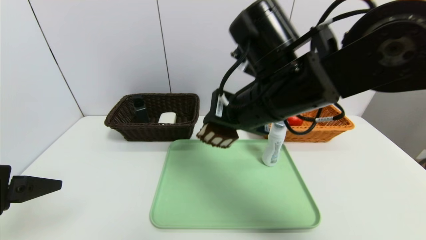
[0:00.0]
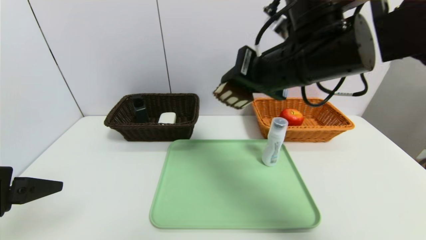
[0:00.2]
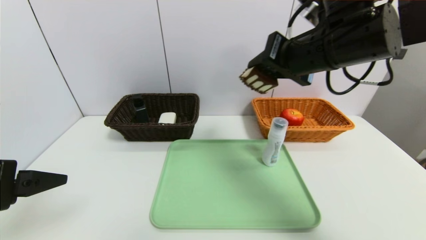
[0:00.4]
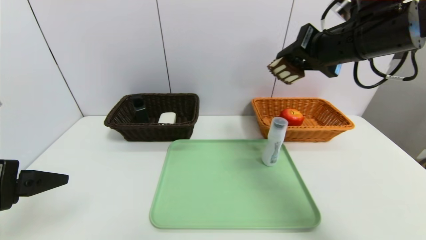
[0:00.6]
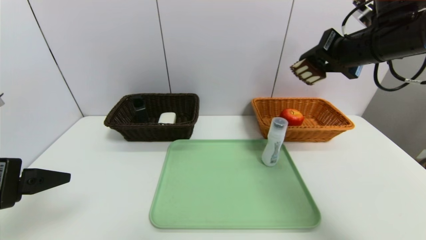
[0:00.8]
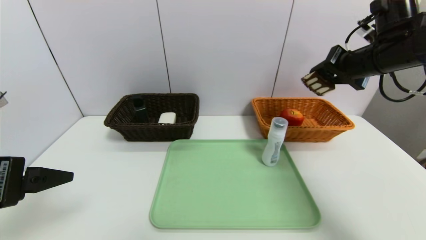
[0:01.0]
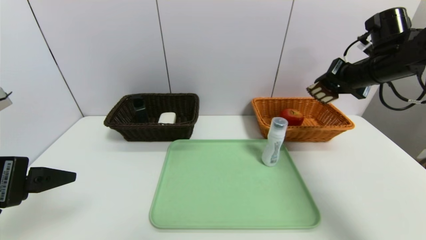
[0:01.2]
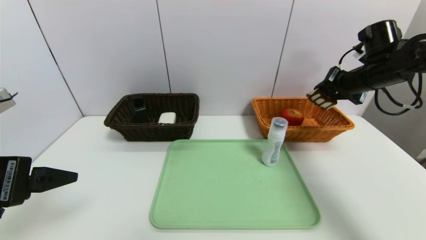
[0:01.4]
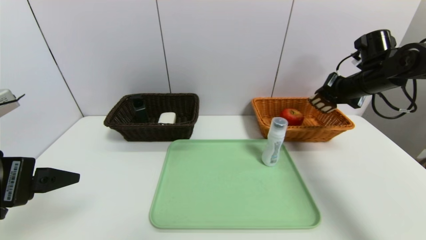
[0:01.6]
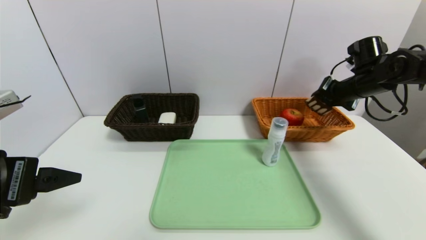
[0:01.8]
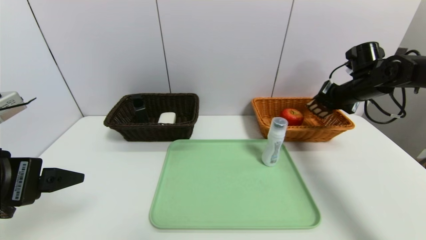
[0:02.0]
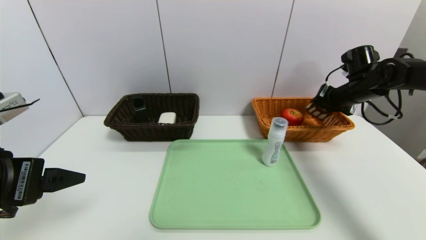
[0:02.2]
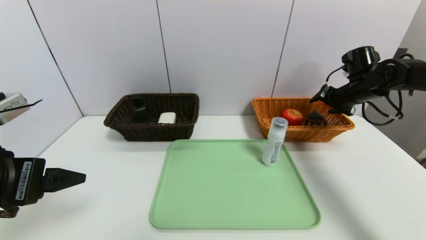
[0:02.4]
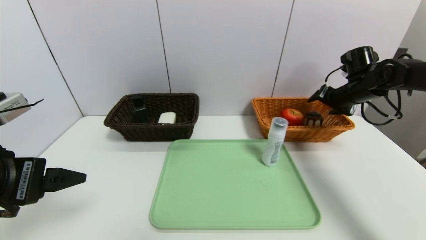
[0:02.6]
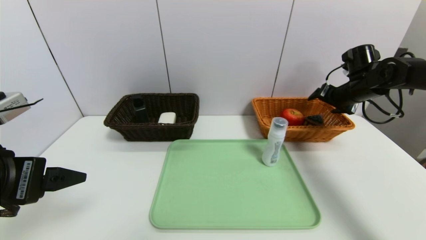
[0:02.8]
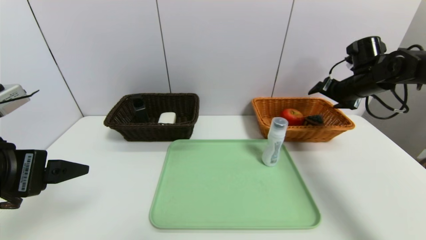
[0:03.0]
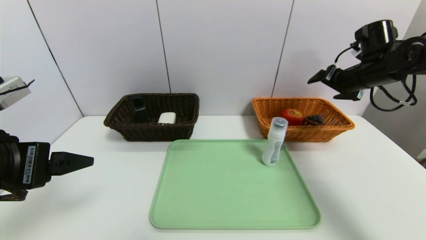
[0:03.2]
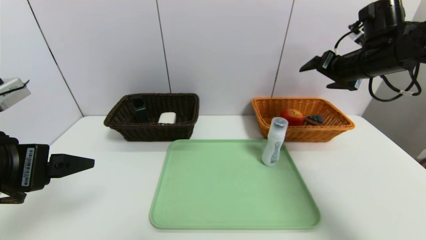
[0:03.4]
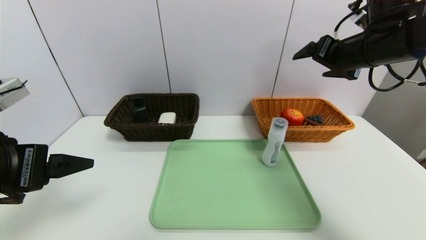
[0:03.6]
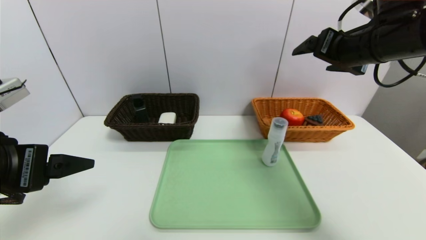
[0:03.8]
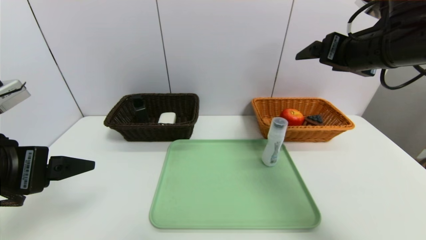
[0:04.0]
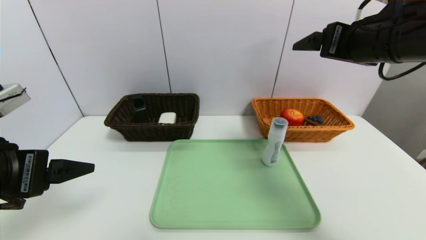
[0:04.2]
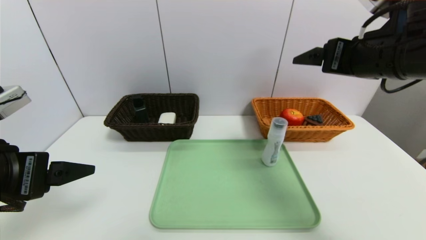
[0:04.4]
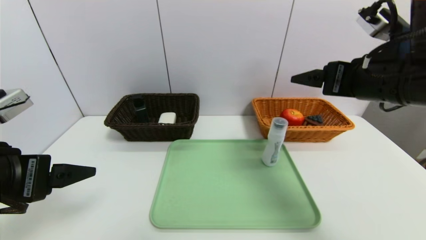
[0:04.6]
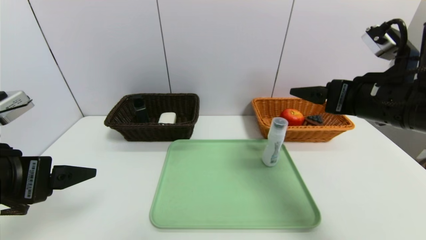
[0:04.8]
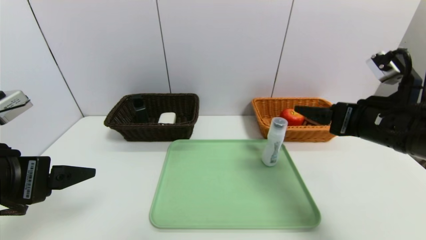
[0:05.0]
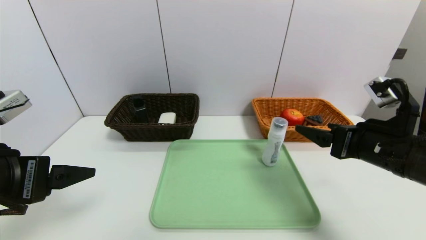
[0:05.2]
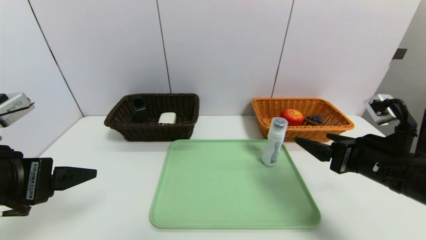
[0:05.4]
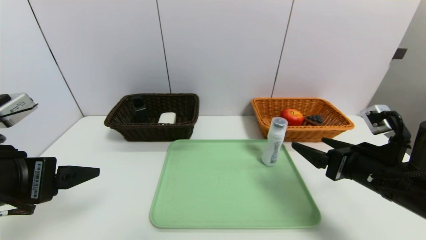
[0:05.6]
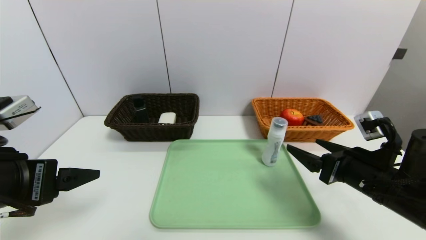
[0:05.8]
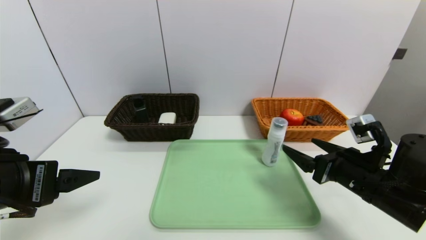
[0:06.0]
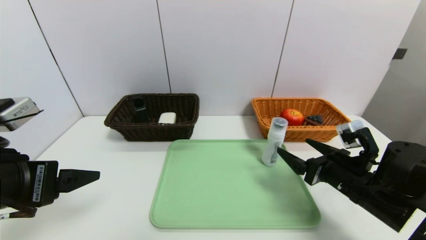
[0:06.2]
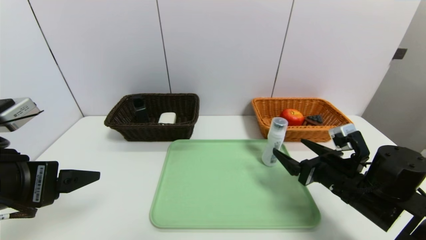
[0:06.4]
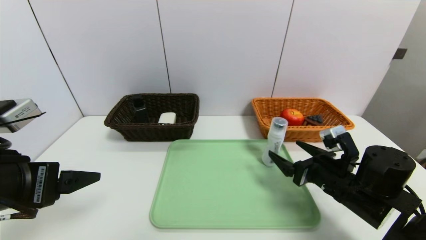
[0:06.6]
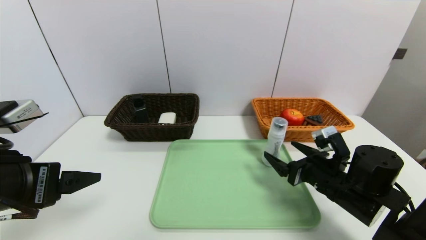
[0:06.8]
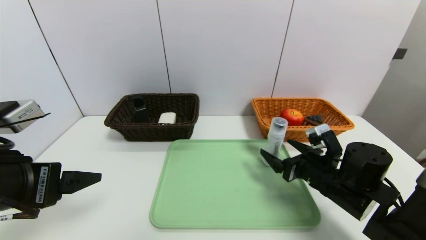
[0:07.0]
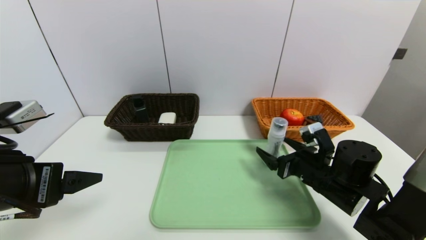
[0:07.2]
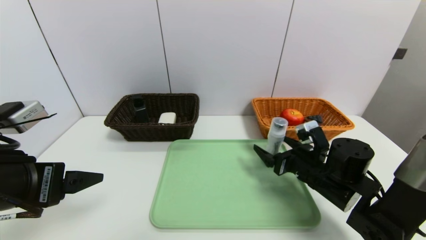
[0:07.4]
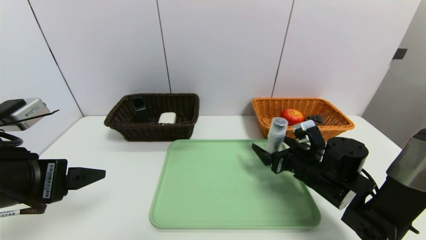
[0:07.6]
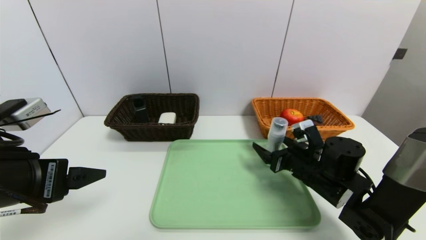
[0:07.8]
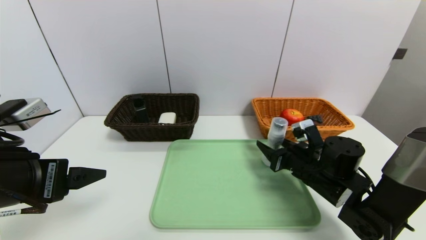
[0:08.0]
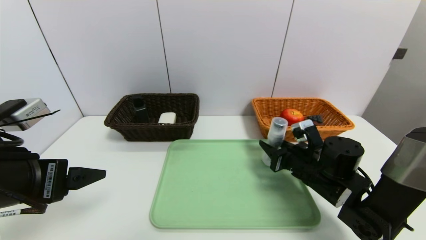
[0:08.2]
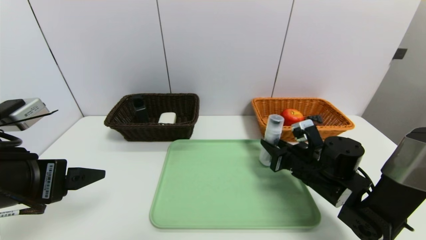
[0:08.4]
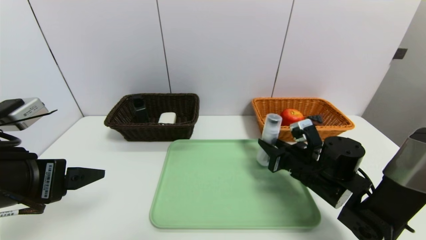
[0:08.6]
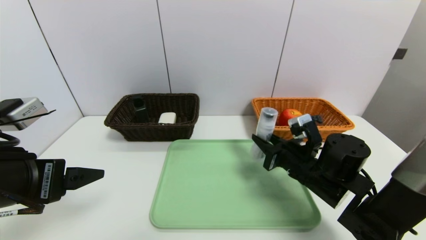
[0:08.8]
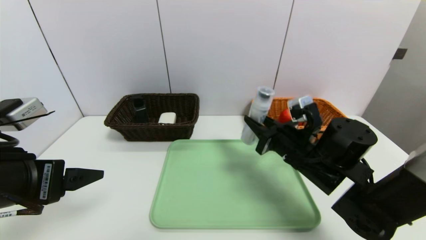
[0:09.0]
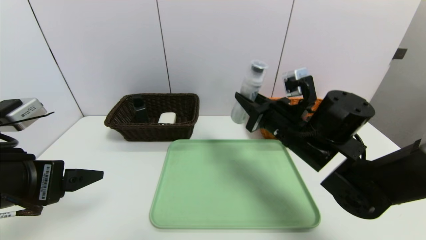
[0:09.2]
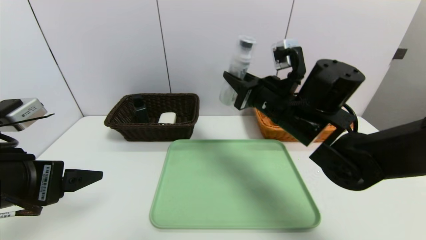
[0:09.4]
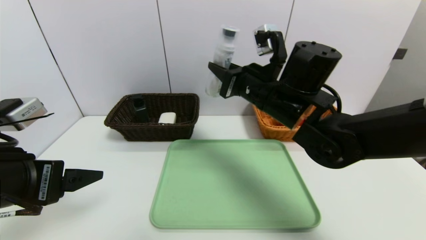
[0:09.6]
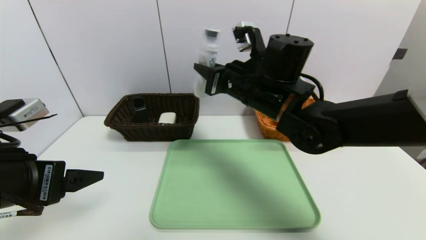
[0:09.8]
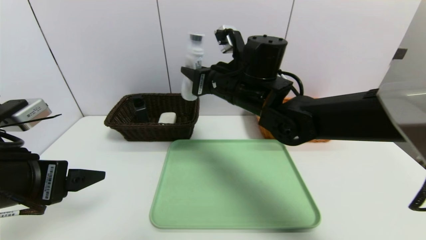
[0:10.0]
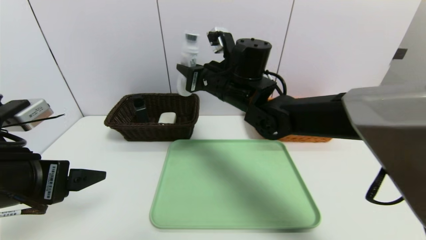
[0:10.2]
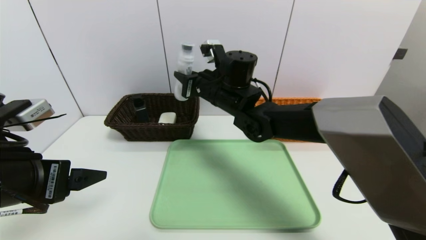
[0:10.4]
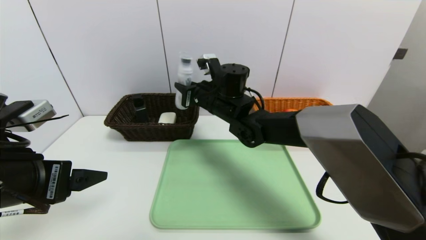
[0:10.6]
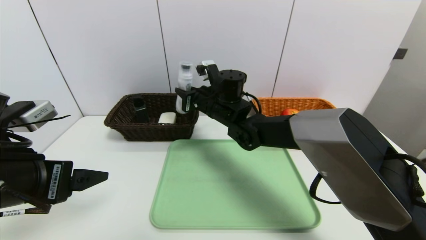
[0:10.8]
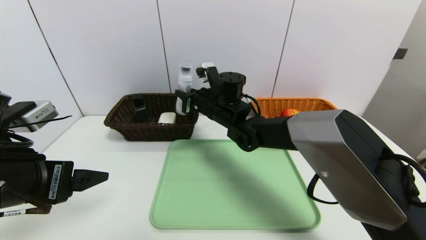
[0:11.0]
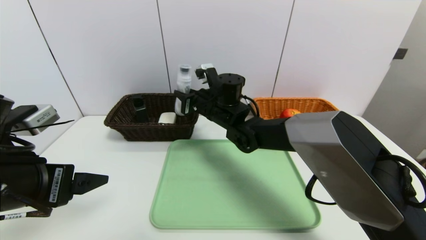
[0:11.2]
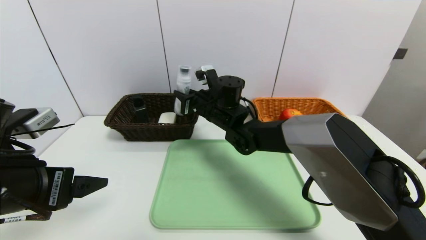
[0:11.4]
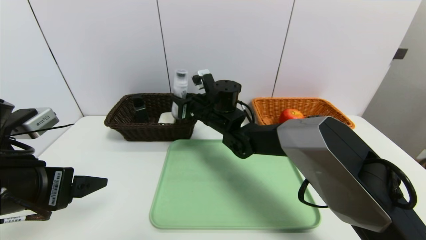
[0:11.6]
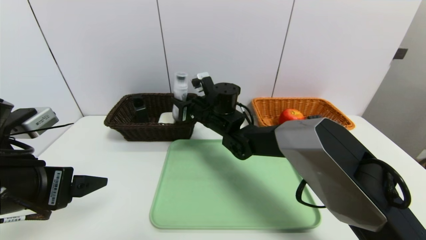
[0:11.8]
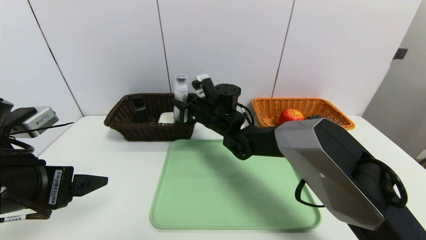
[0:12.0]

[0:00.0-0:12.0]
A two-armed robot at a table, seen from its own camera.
Task of the whole recording: place the food in the right basket with the right gripper, and place the non food items in the left basket with the left gripper.
Step, 0:00.0 to 0:03.0: Grasp the triangle cake and put it in the right basket.
0:00.0 to 0:01.6: The right gripper shifts some 30 cm to the right and forward.
0:01.6 to 0:03.0: The right gripper opens its fingers.
0:03.0 to 0:04.4: The right gripper is displaced backward, to the left and upward by about 20 cm.
0:04.4 to 0:06.0: The right gripper shifts about 20 cm downward.
0:06.0 to 0:07.6: The right gripper moves forward and downward, roughly 10 cm.
0:07.6 to 0:09.0: The right gripper goes about 5 cm upward, and closes its fingers.
0:09.0 to 0:10.4: The right gripper is displaced to the left, forward and upward by about 20 cm.
0:10.4 to 0:12.0: The right gripper is displaced downward by roughly 5 cm.

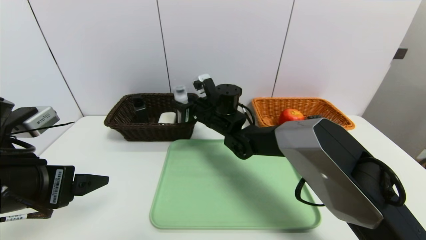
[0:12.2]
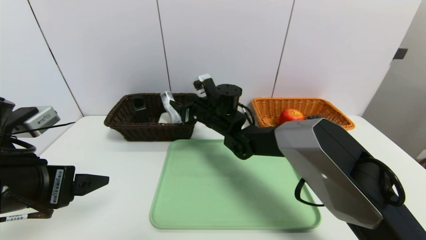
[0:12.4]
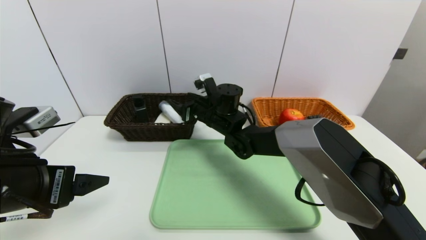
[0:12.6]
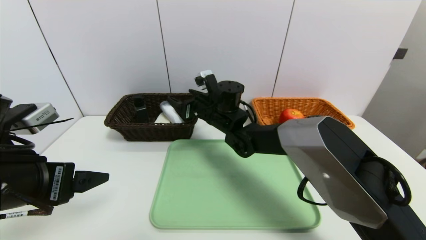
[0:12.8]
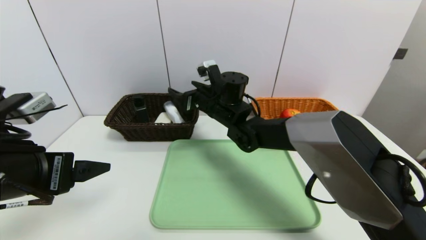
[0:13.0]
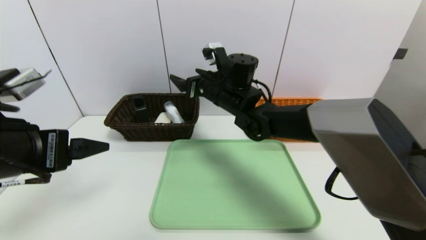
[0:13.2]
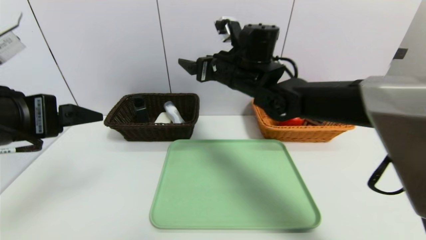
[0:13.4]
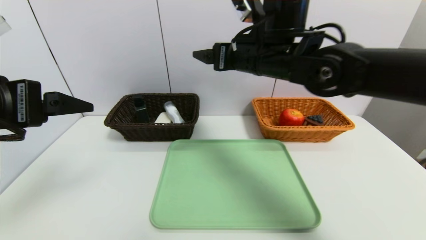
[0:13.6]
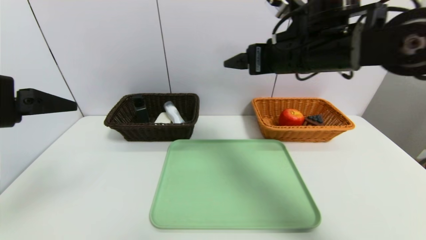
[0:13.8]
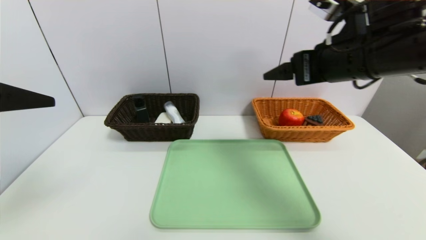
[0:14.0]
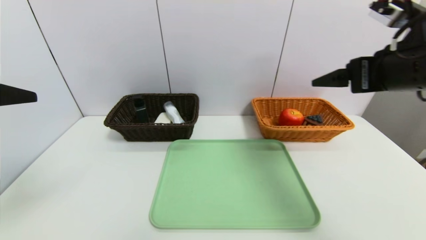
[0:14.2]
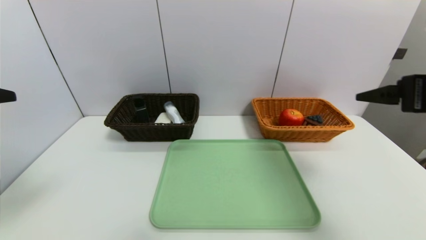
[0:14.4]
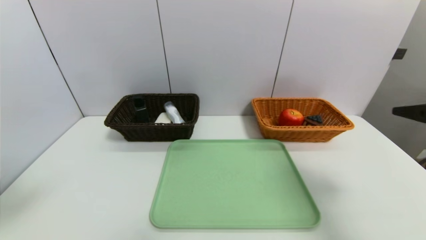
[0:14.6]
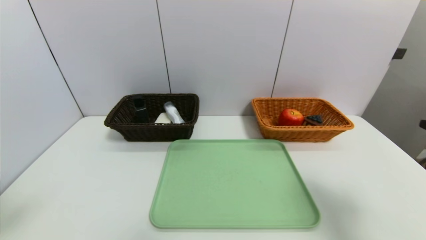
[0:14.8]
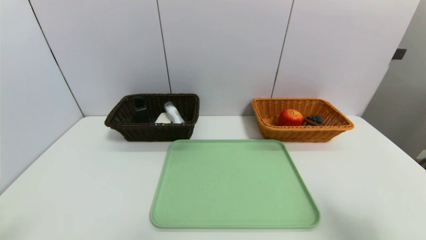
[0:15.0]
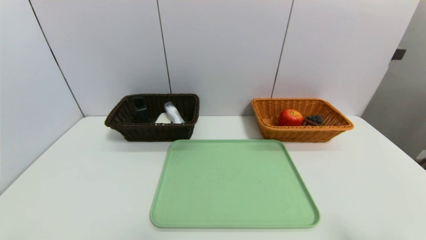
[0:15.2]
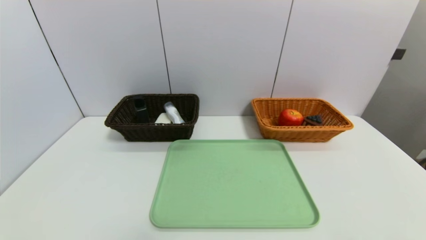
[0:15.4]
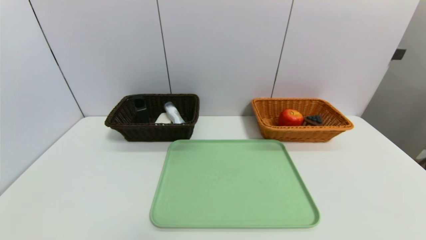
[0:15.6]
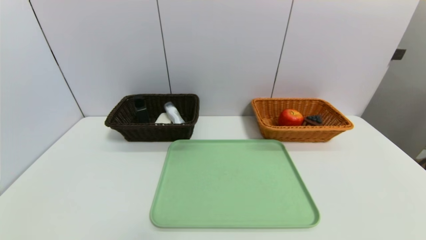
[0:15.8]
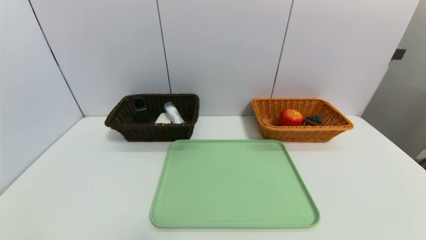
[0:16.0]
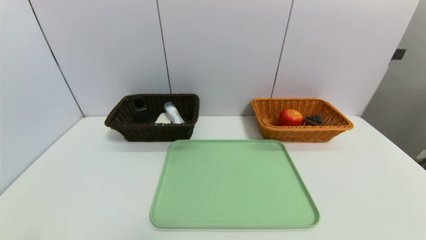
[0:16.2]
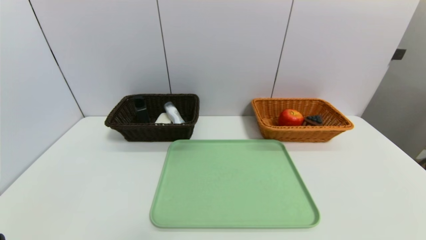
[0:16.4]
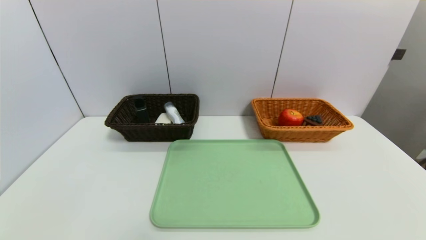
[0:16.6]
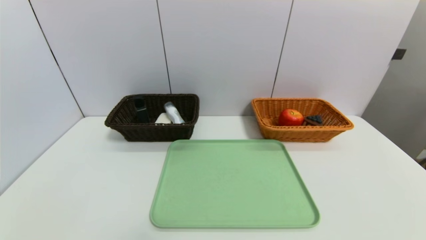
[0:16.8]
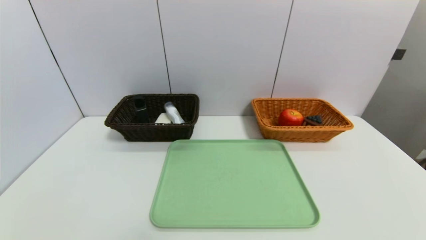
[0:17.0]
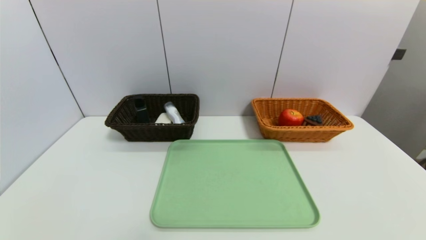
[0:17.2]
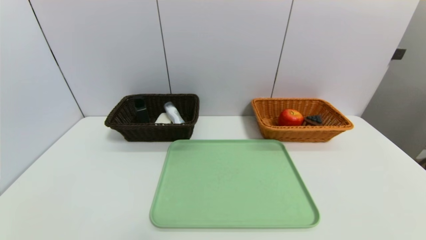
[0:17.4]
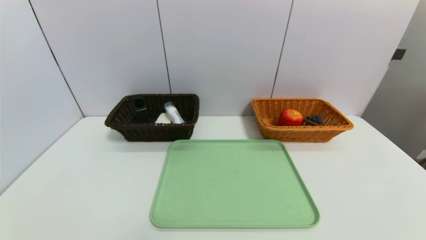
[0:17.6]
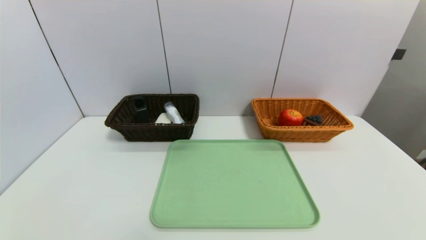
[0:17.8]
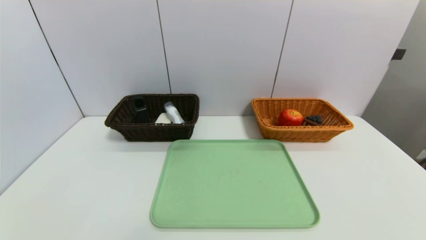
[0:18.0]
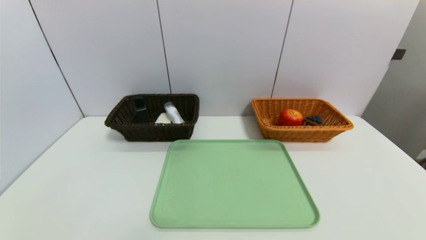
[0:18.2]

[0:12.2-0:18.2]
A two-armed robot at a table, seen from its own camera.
Task of the whole recording: place the food in the right basket with the right gripper, and place the non food items in the left basket with the left gripper.
0:12.2 to 0:13.8: The right gripper is displaced upward, to the right and backward by about 25 cm, and opens up. The left gripper goes approximately 10 cm upward.
0:13.8 to 0:15.2: The left gripper moves backward and downward, approximately 15 cm, while the right gripper heads backward, to the right and downward, covering some 35 cm.
